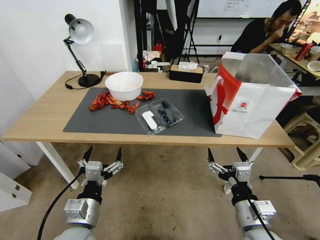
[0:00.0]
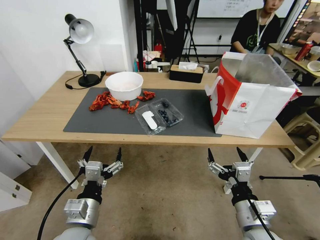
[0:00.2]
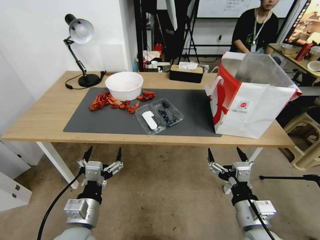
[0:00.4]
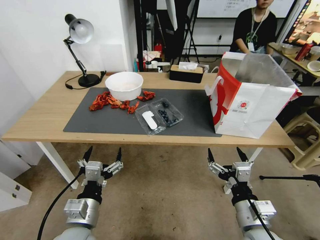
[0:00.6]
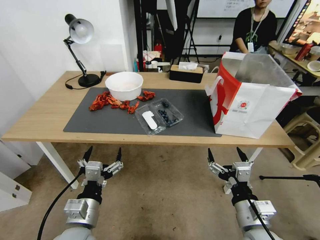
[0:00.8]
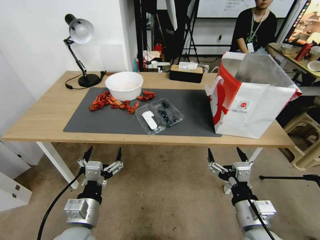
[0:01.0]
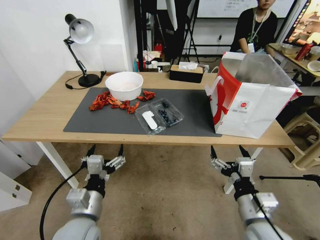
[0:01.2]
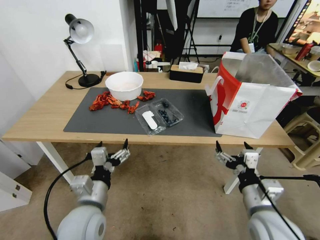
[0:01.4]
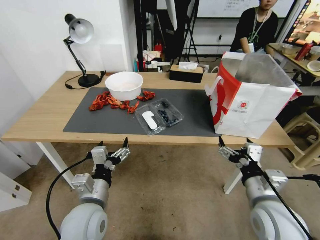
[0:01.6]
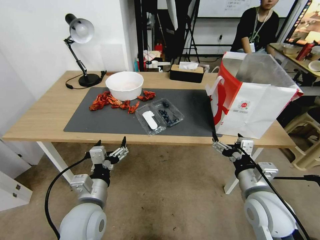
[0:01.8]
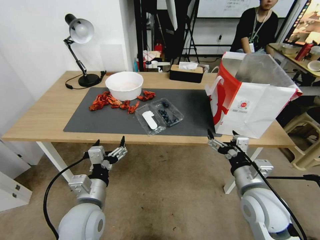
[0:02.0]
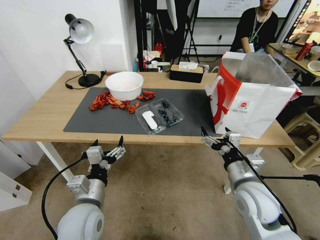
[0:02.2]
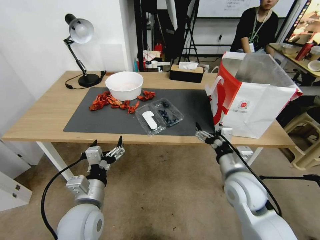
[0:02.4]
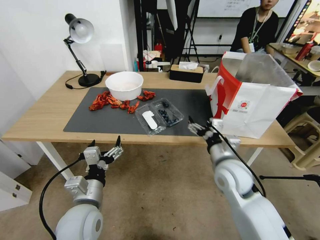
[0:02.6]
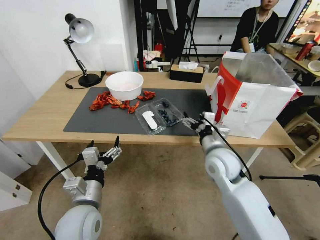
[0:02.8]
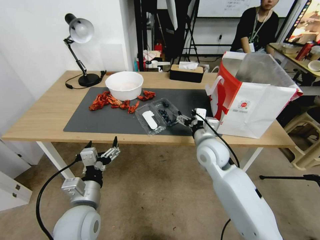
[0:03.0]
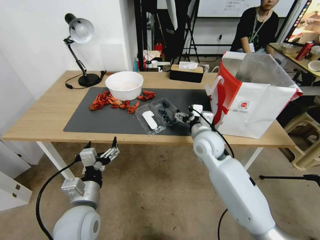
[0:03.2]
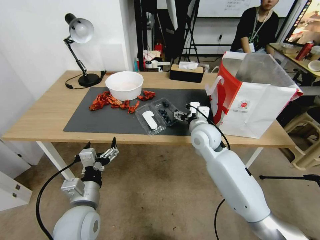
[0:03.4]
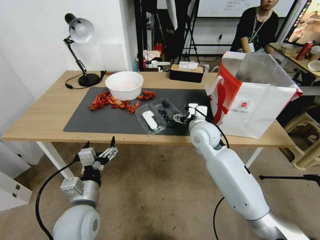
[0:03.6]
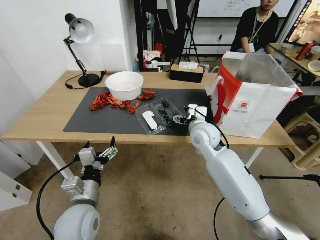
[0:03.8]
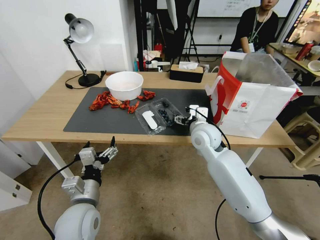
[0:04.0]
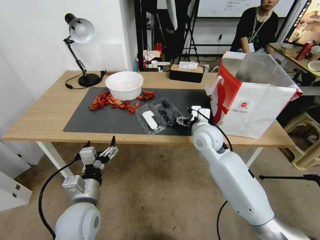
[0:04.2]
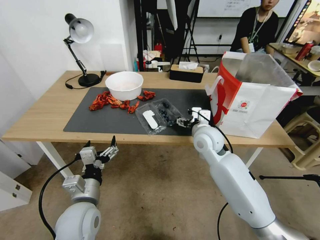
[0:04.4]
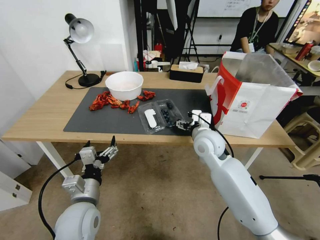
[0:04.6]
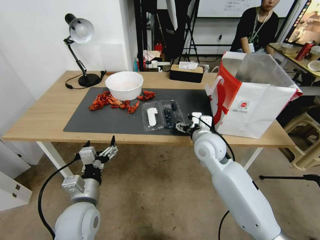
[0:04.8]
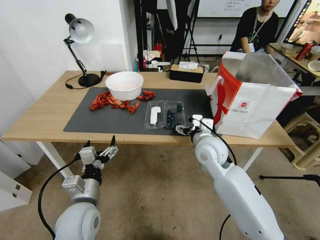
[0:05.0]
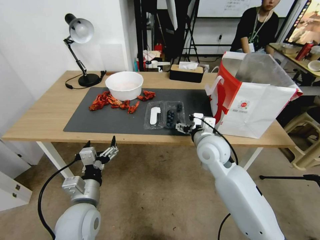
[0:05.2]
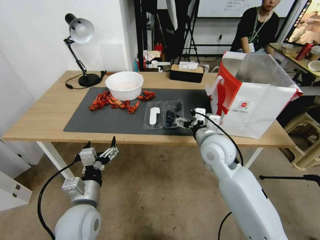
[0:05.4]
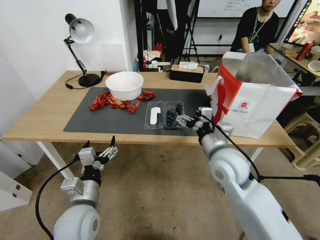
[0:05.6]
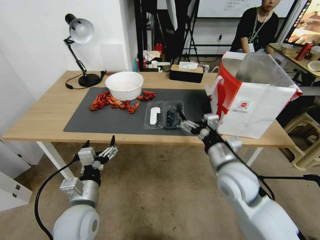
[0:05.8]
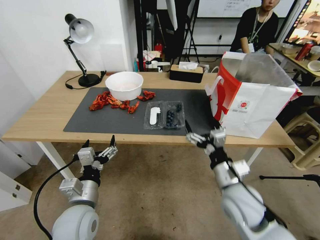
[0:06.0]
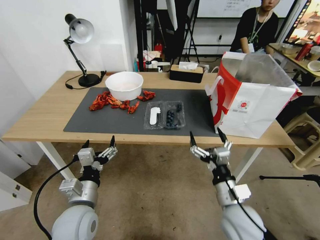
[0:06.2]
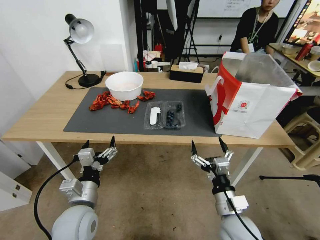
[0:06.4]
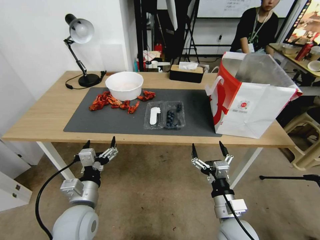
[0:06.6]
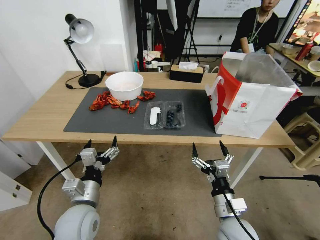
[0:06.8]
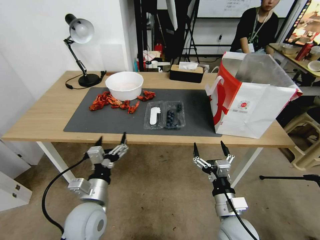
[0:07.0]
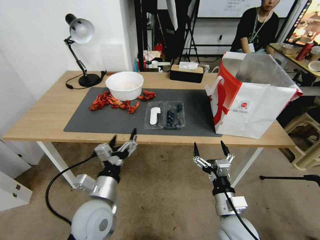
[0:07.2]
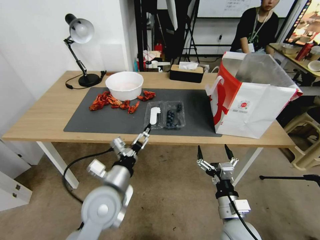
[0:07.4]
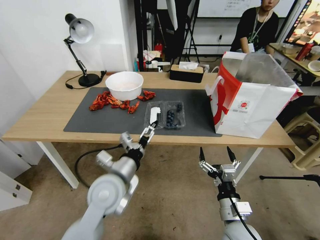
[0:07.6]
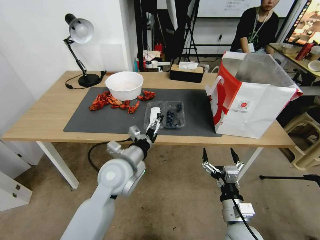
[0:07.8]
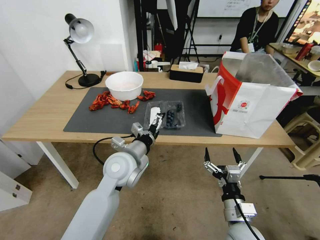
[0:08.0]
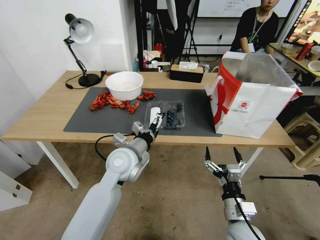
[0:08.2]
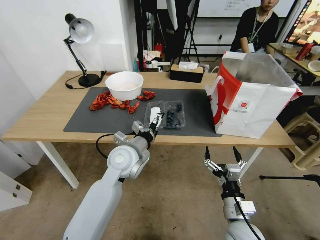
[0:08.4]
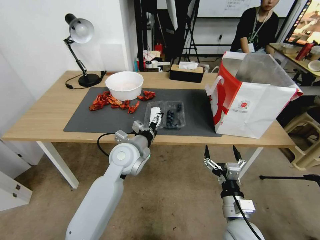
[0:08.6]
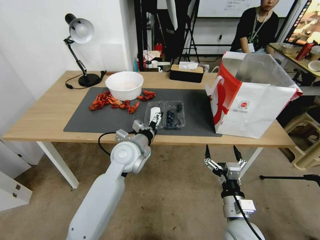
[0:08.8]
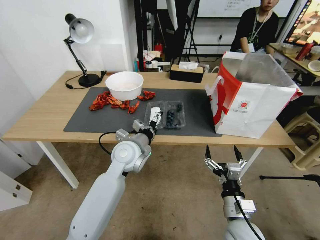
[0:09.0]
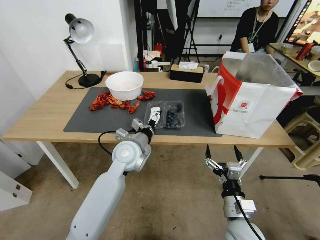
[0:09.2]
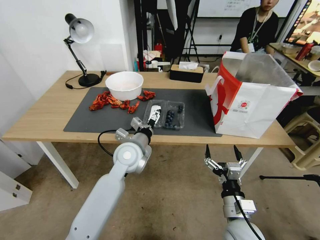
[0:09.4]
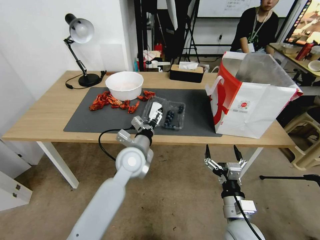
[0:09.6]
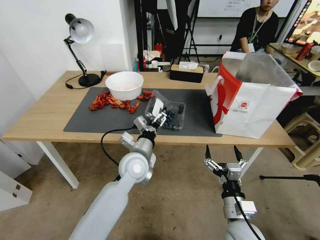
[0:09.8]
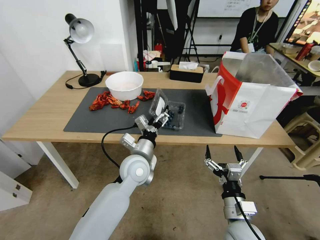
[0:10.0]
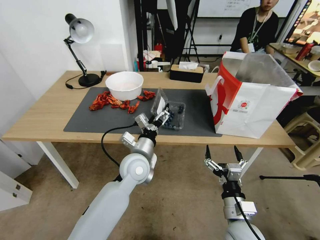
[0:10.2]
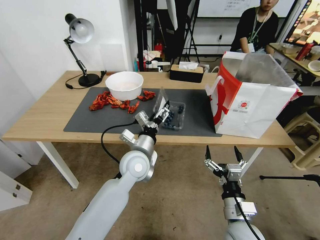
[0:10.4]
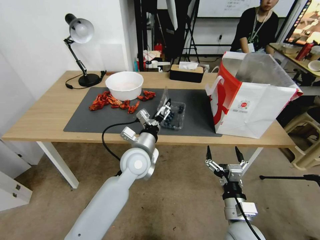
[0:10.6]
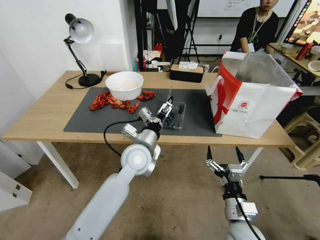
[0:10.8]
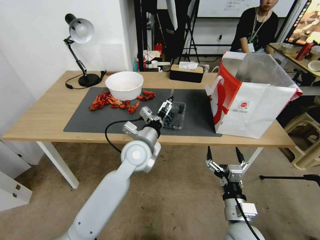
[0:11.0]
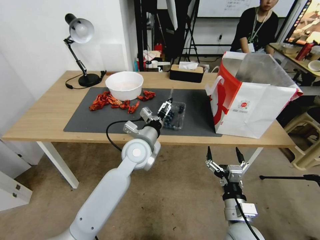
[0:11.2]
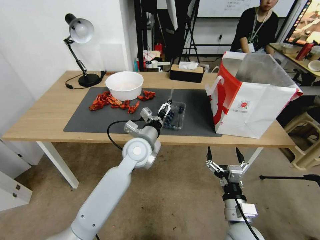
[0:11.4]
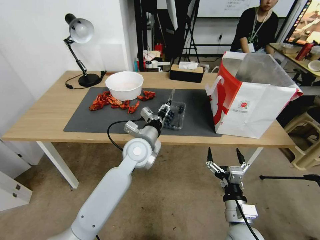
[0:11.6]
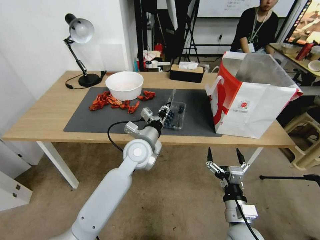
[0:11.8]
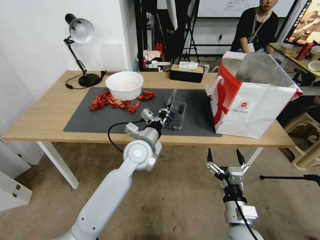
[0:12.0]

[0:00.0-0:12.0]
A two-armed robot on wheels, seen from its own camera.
Task of the whole recording: Close the takeout container lid, then place the container into the takeout bag.
0:01.6 to 0:03.0: The right gripper travels forward and to the left by some 20 cm.
0:03.0 to 0:04.4: The grippers stay close to where they were, moving slightly.
0:04.4 to 0:06.0: The right gripper travels backward by roughly 20 cm.
0:06.0 to 0:07.6: The right gripper is displaced downward and backward by some 10 cm, while the left gripper travels to the right and forward by some 10 cm.
0:07.6 to 0:09.0: The left gripper moves forward, approximately 10 cm.
0:10.4 to 0:12.0: The left gripper closes.

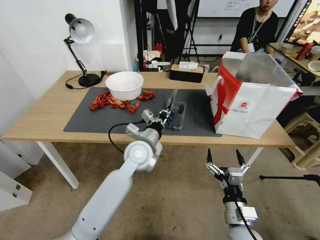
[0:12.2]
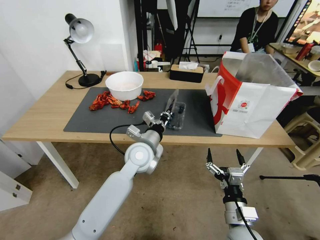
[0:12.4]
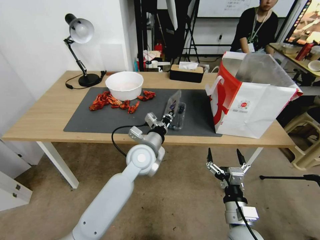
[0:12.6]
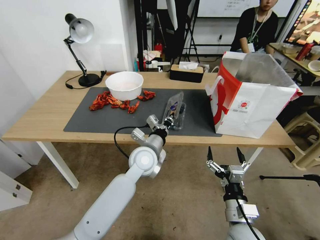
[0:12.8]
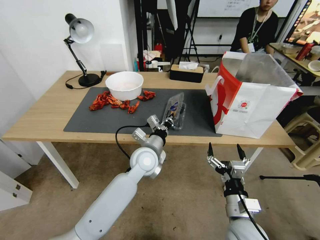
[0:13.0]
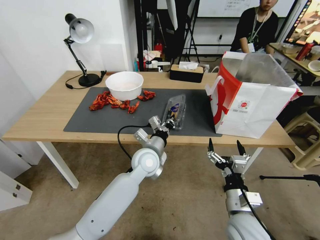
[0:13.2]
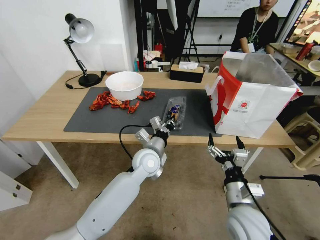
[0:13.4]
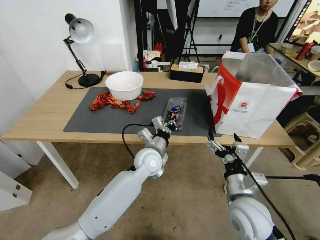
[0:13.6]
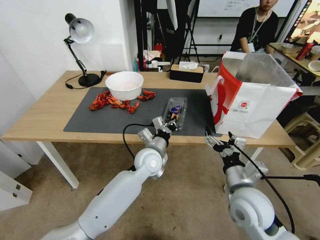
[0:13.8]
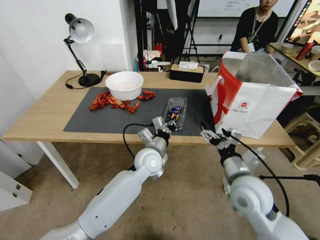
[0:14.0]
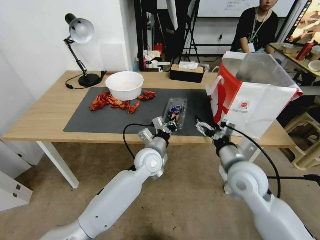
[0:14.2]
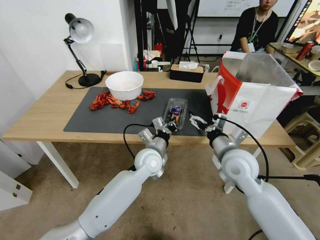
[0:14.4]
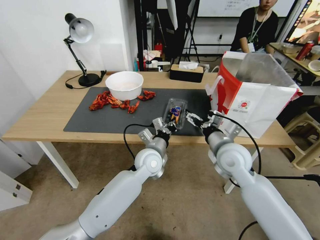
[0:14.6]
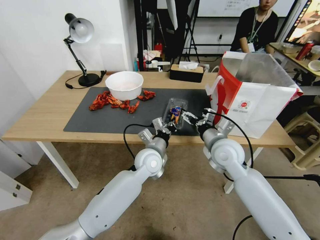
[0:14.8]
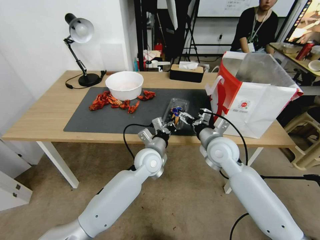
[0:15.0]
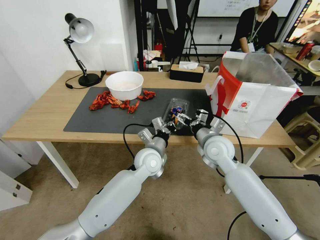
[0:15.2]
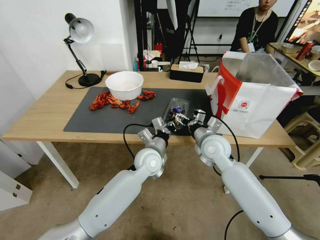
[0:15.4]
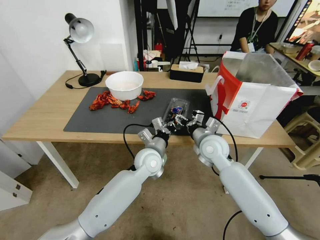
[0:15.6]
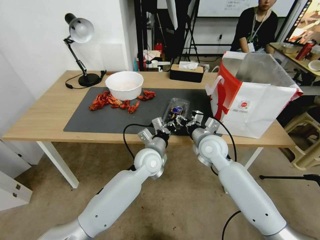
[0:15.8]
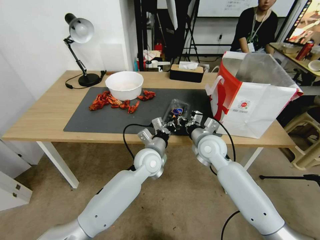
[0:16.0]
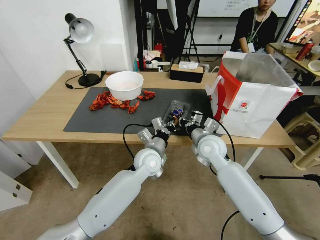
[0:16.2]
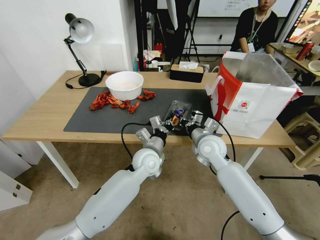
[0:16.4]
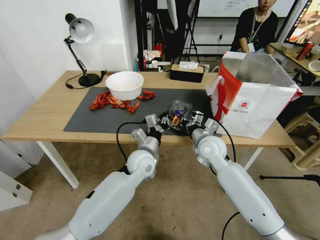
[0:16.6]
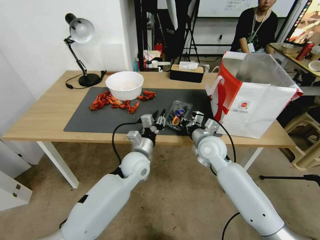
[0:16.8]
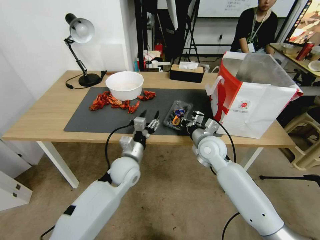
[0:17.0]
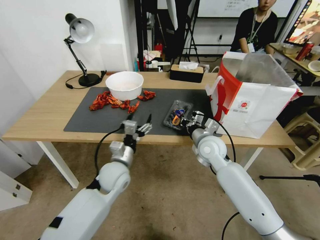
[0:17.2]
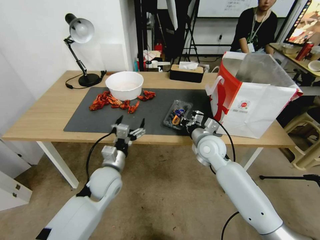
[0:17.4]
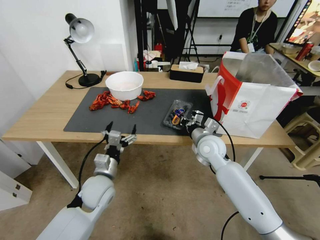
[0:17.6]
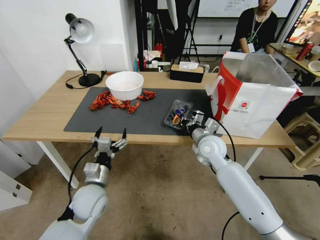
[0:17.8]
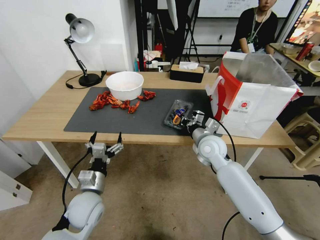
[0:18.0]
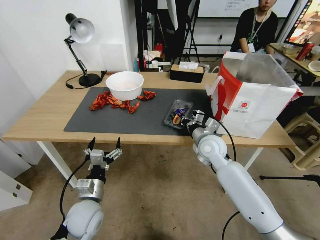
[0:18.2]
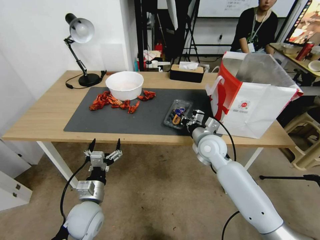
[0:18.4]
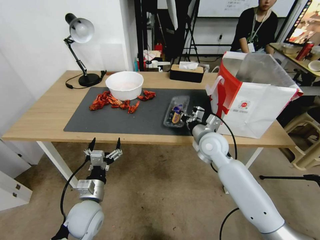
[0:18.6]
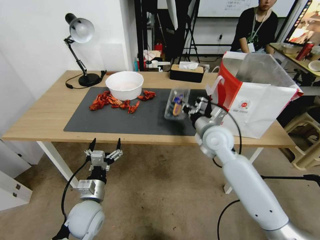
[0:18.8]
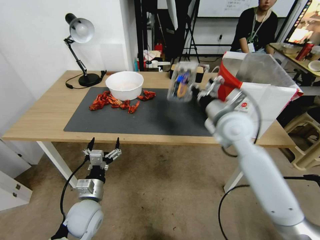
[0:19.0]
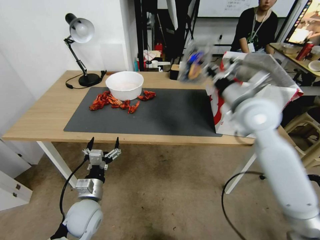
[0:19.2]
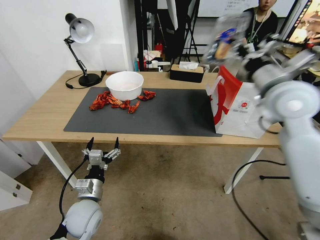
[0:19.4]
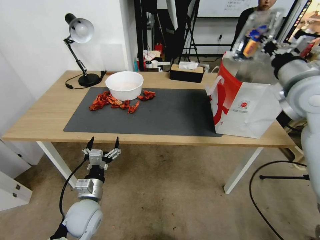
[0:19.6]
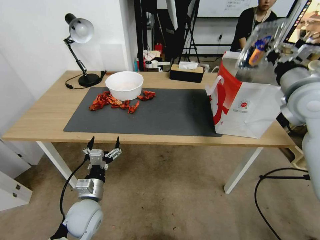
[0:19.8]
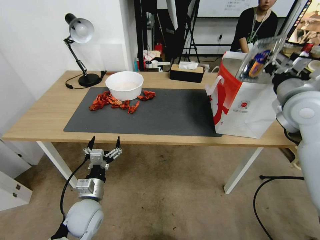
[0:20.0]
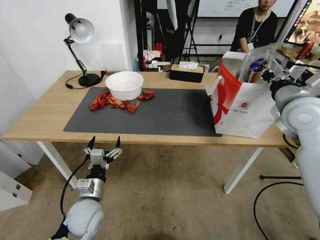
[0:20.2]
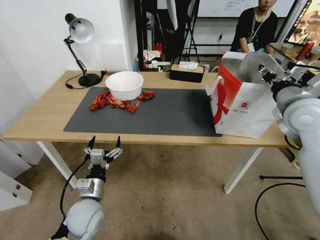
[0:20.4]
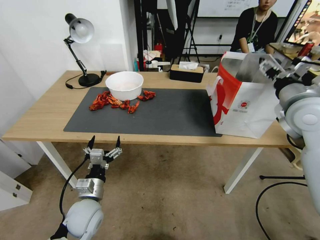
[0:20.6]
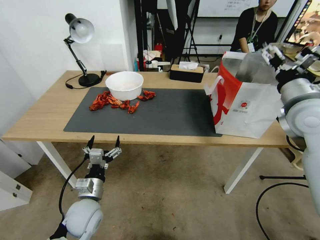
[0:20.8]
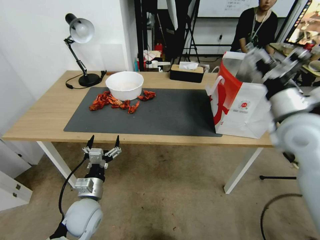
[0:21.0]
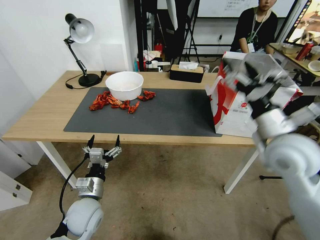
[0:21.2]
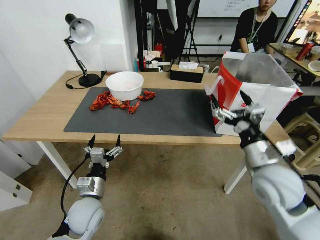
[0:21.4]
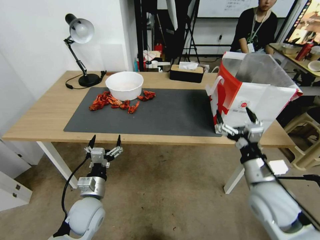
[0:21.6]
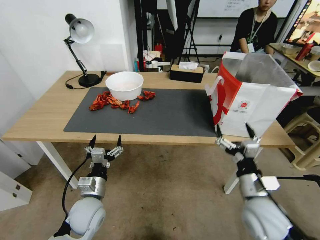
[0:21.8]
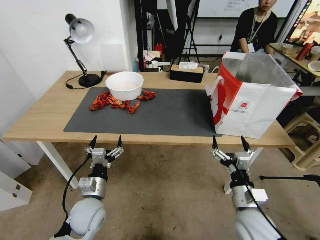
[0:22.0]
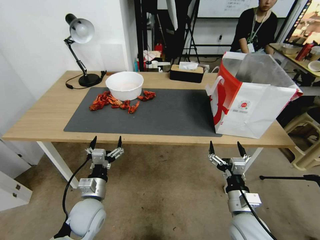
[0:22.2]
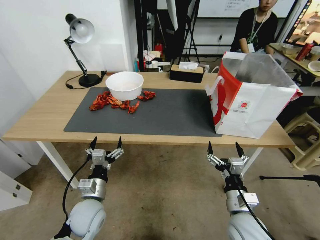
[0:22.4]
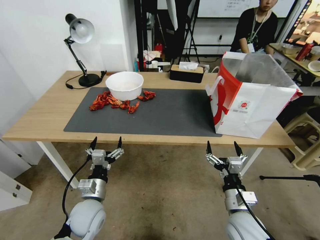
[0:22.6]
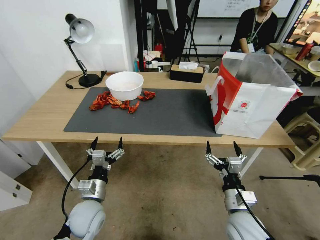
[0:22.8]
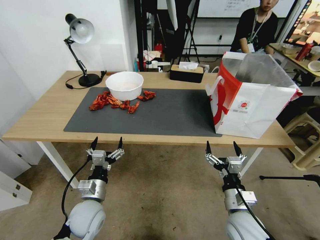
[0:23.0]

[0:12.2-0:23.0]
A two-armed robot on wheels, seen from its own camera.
Task of the whole recording: Close the takeout container lid, then place the container into the takeout bag.
0:12.2 to 0:13.8: The right gripper shifts roughly 10 cm upward and forward, while the left gripper shifts approximately 5 cm downward.
0:13.8 to 0:15.2: The right gripper travels forward by roughly 15 cm.
0:15.2 to 0:16.8: The right gripper closes.
0:16.8 to 0:18.4: The left gripper moves backward and to the left, some 20 cm, and opens up.
0:18.4 to 0:20.0: The right gripper goes about 25 cm upward and to the right.
0:20.0 to 0:21.4: The right gripper goes about 15 cm downward, backward and to the left, and opens its fingers.
0:21.4 to 0:23.0: The right gripper travels downward and backward by about 20 cm.
